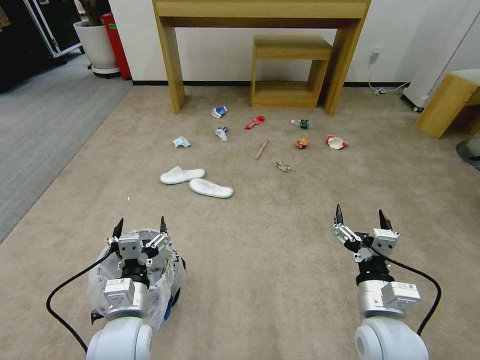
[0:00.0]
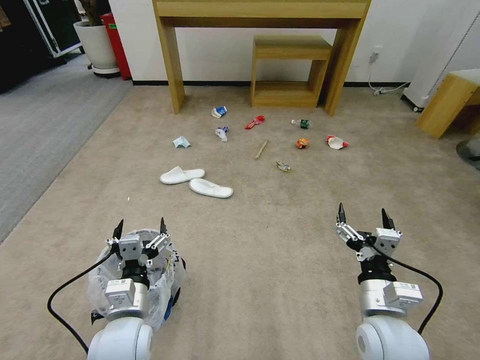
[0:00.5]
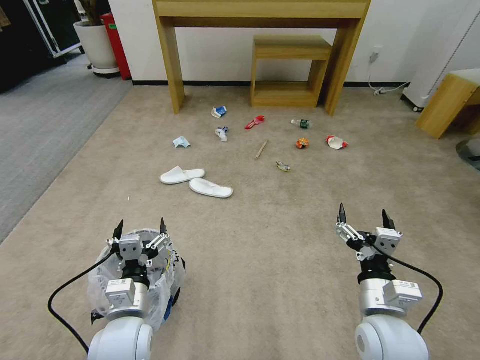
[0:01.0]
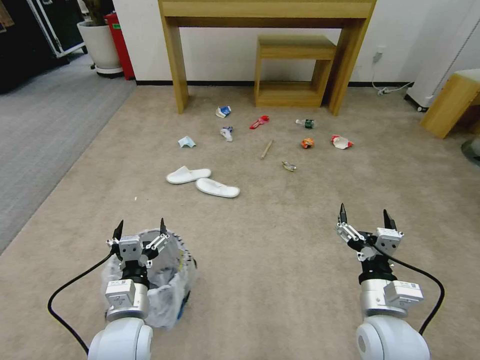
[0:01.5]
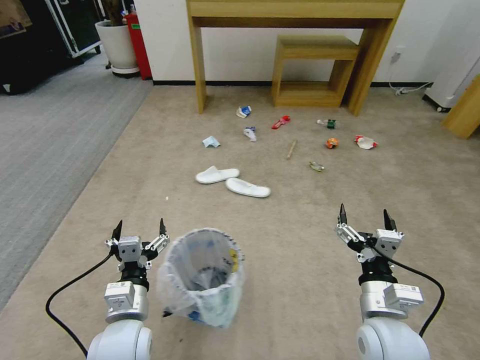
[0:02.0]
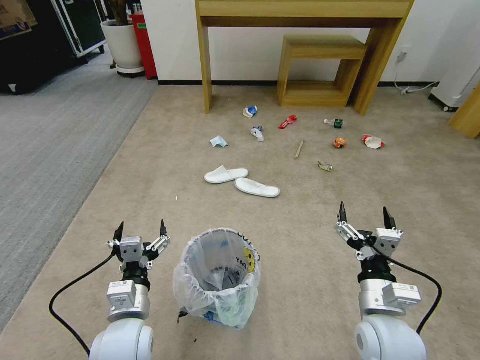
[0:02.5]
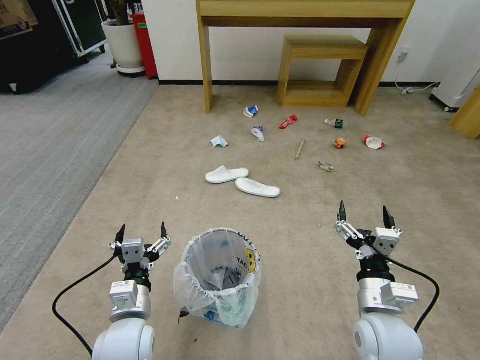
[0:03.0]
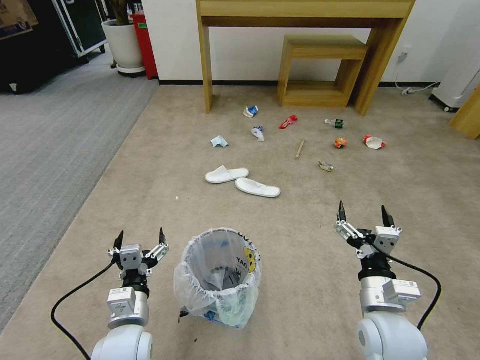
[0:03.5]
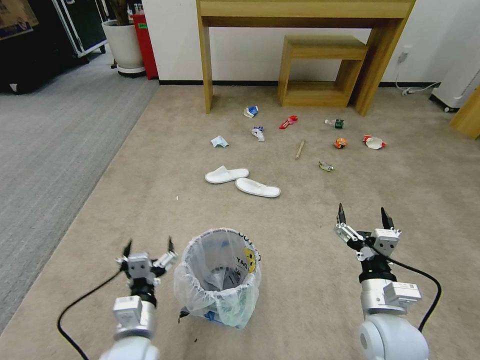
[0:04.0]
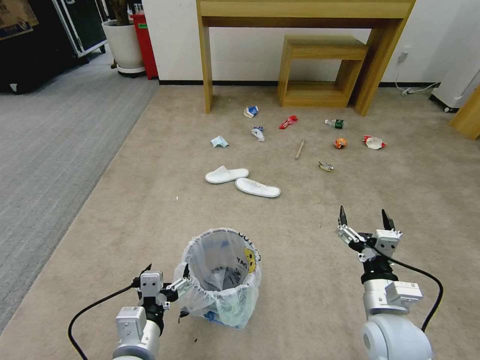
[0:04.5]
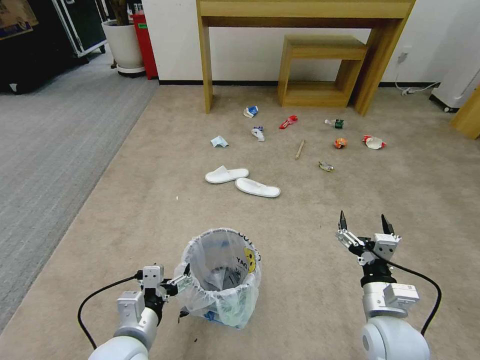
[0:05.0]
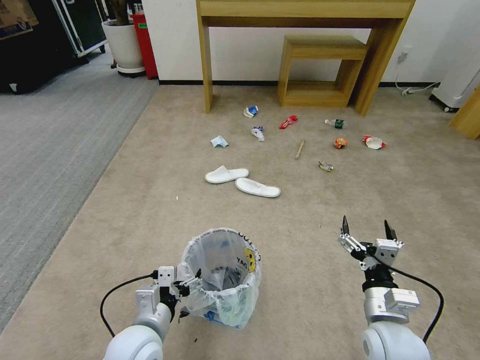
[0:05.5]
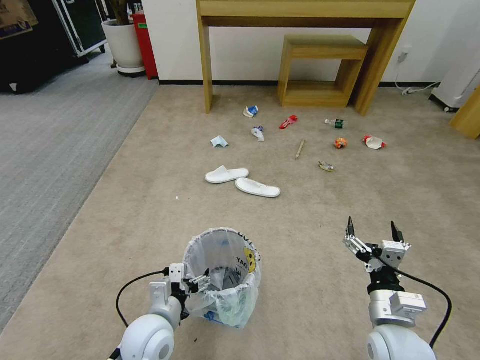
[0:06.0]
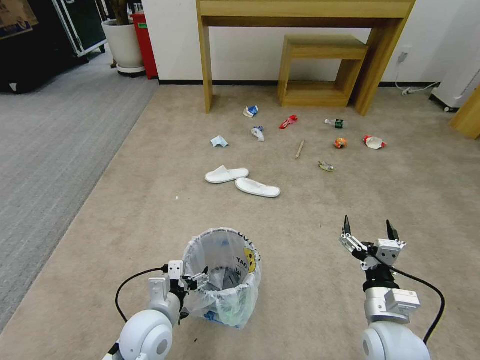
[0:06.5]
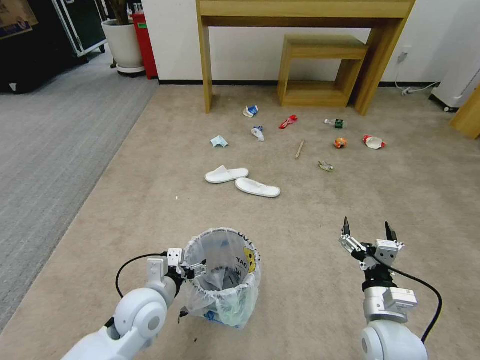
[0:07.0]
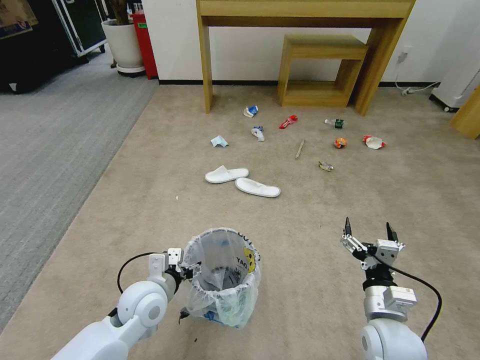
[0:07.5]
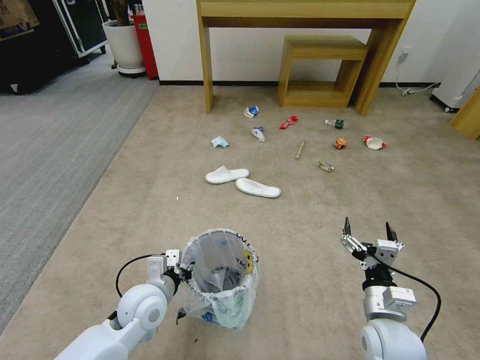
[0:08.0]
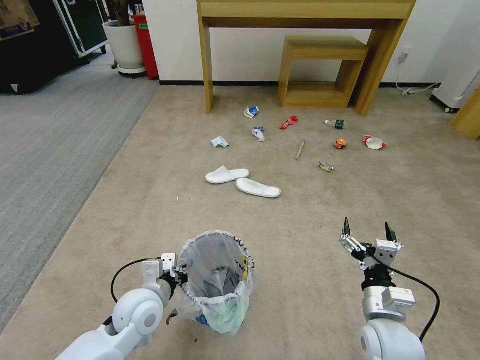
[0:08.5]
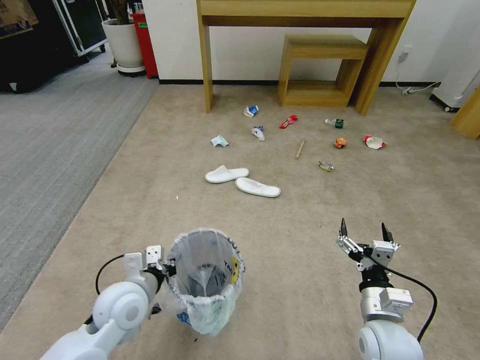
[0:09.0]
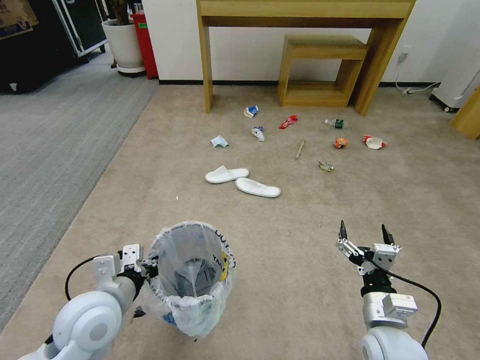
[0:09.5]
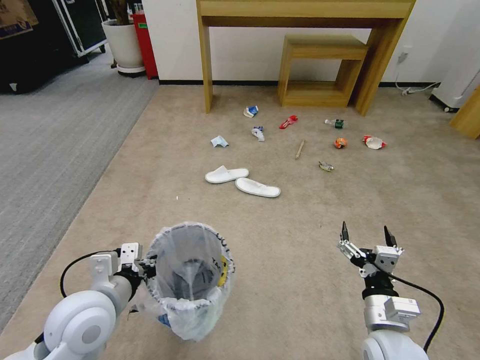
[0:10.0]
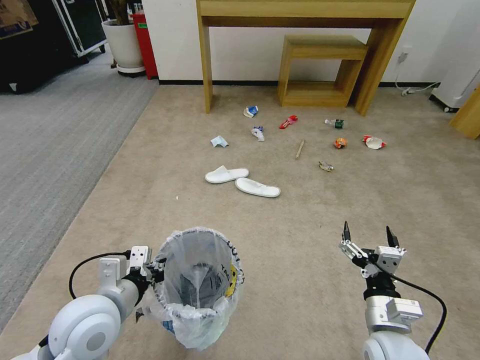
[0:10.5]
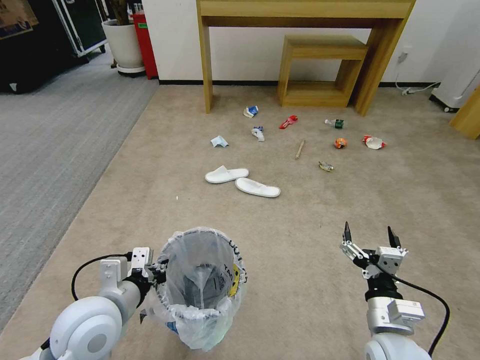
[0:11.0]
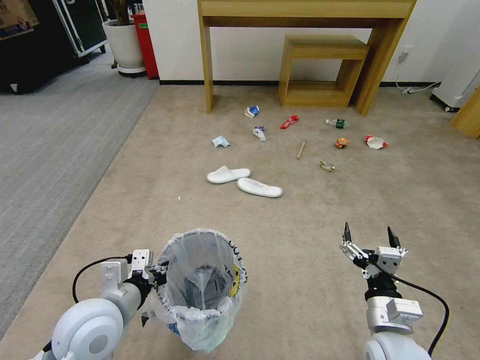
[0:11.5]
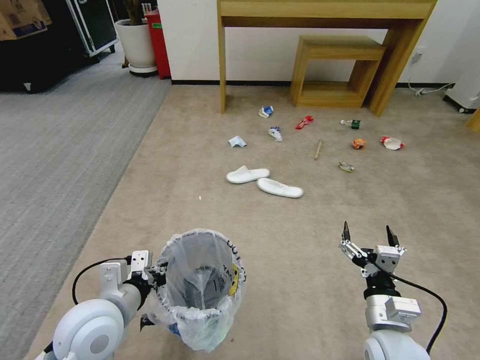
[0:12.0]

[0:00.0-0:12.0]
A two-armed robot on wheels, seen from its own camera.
Task of the whole recording: Pick up the trash bin and place the garbage on the floor into it.
0:02.0 to 0:04.0: The grippers move only a little.
0:04.0 to 0:06.0: The left gripper changes place by roughly 5 cm.
0:06.0 to 0:08.0: The left gripper moves forward, about 5 cm, and closes.
0:08.0 to 0:10.0: The left gripper shifts some 15 cm upward, to the left and backward.
0:10.0 to 0:12.0: The grippers move only a little.

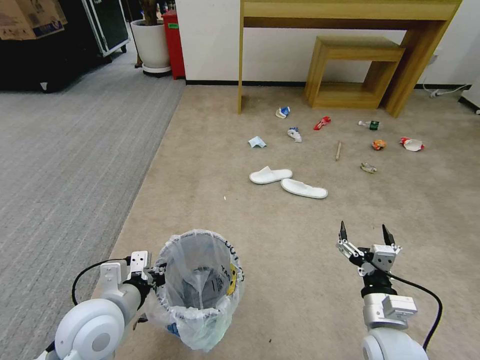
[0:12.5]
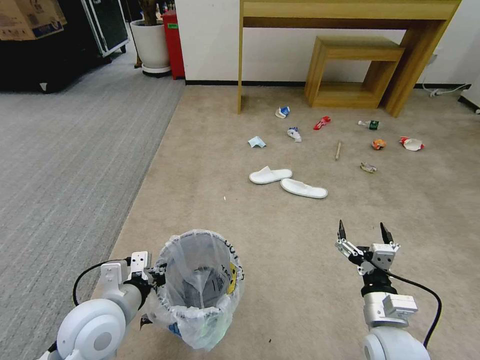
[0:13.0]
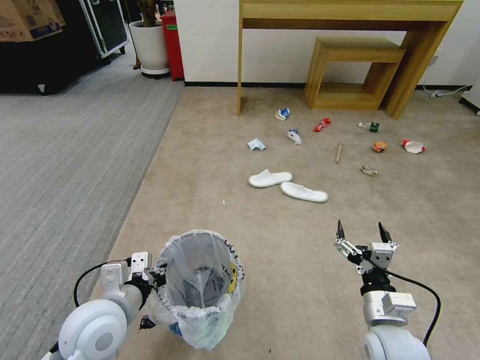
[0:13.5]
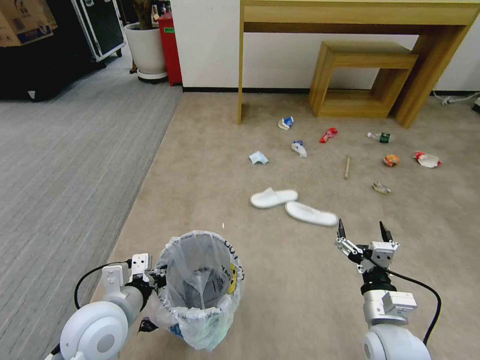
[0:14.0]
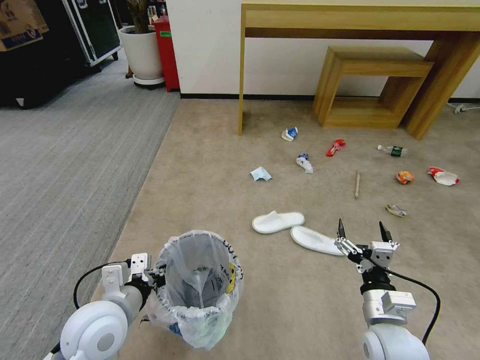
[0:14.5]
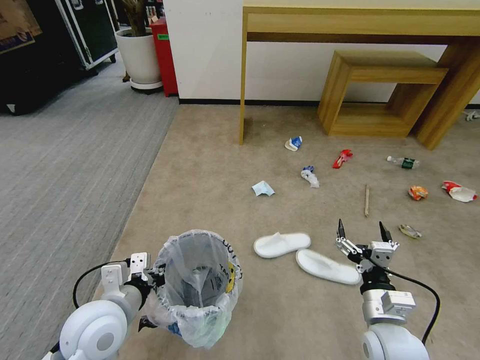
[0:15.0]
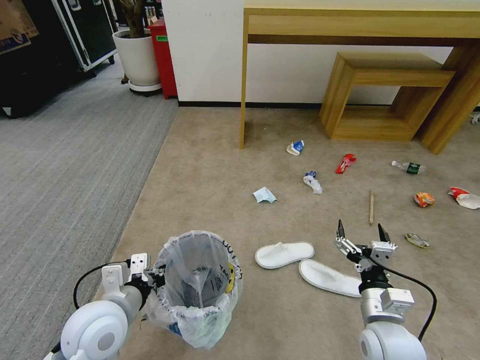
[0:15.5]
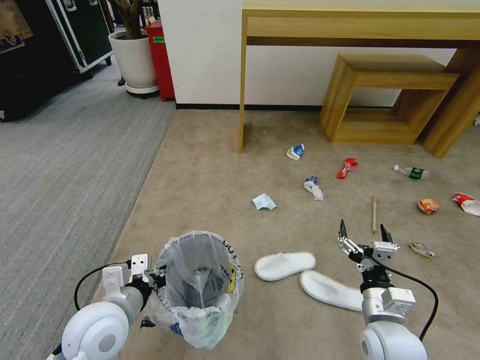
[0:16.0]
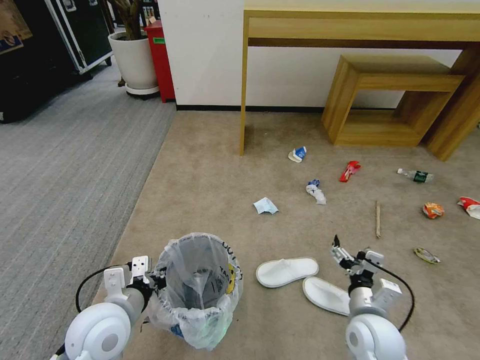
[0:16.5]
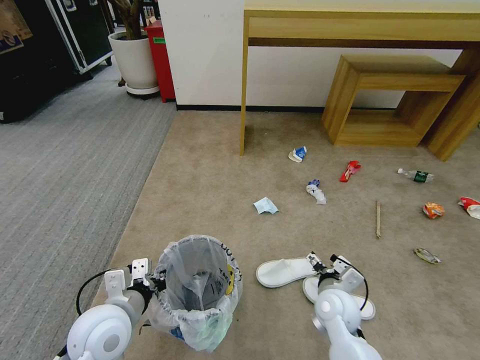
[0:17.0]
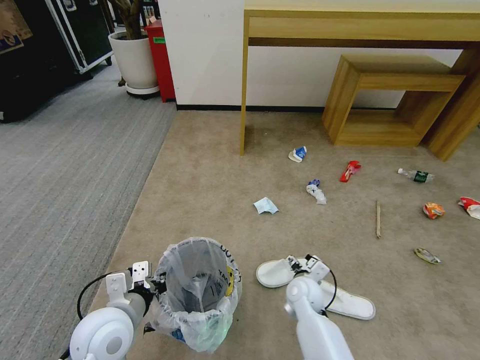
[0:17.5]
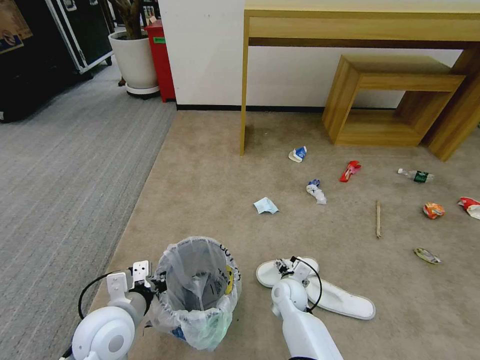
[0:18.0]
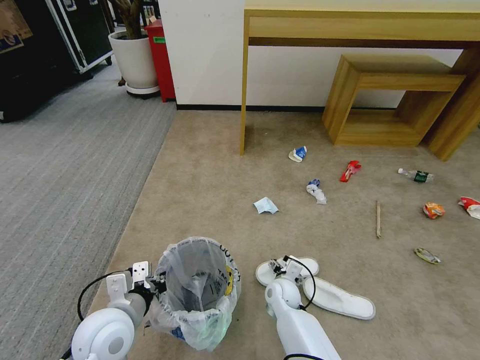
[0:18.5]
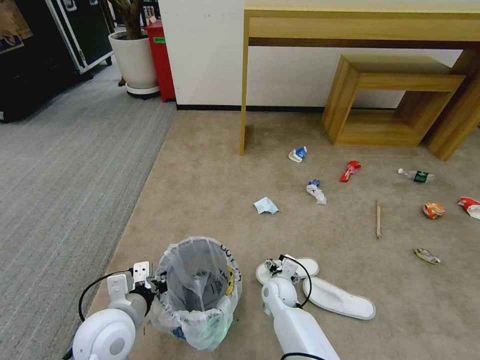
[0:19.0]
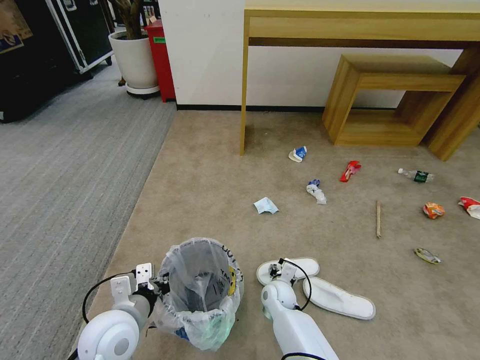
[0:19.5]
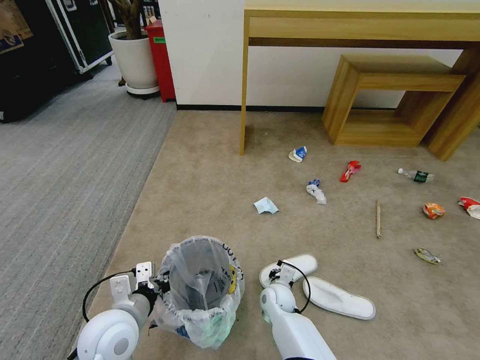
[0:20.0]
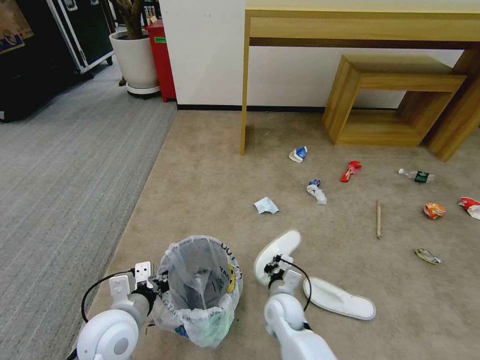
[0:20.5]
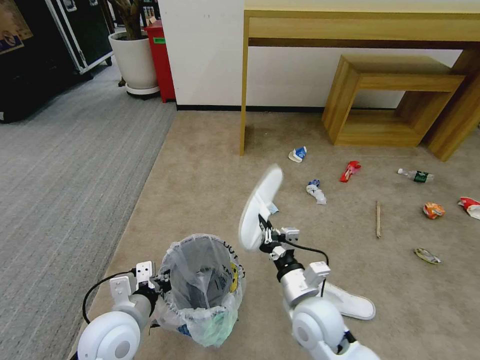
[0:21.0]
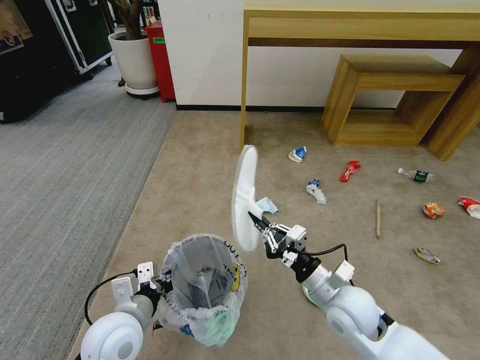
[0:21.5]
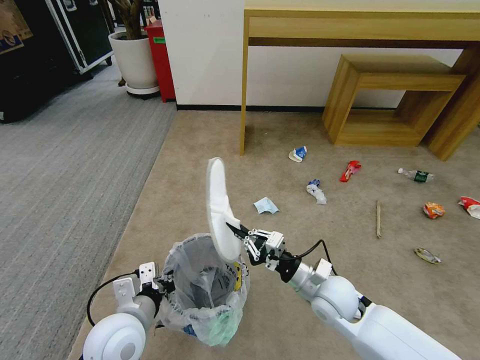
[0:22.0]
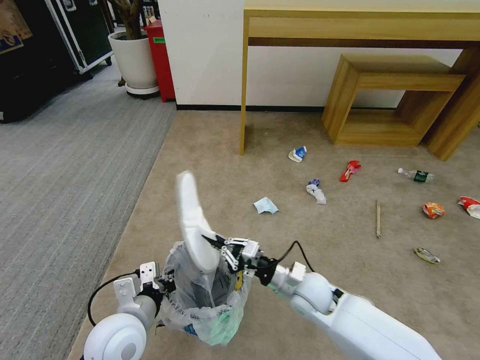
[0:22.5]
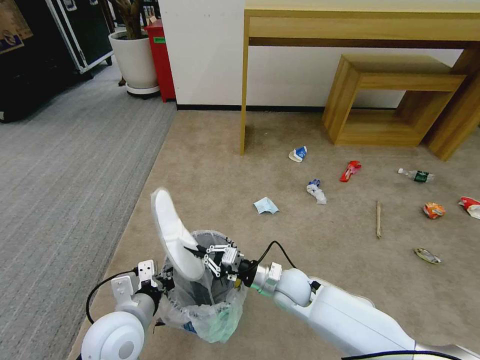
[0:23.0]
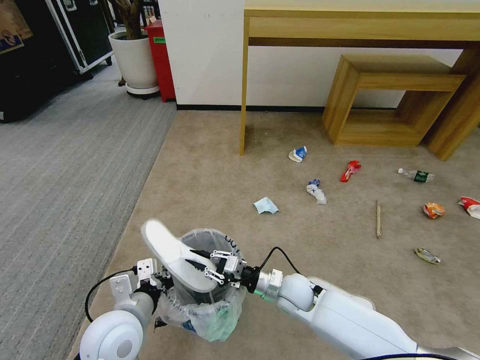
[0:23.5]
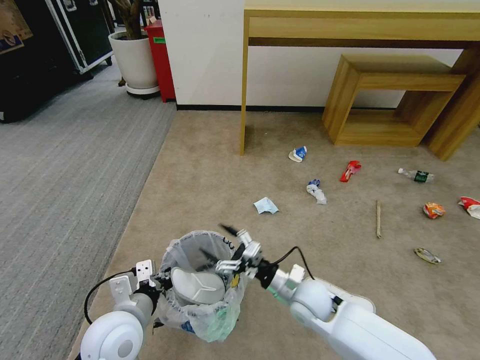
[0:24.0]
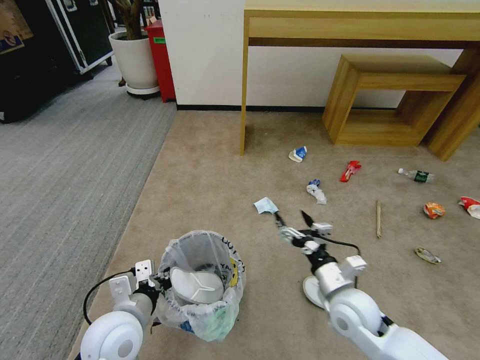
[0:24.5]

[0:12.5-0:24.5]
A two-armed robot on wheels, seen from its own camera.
Task of the whole recording: Pick up the trash bin and place the garbage on the floor into it.
0:16.5 to 0:18.5: The right gripper heads downward, to the left and forward, covering roughly 25 cm.
0:18.5 to 0:20.5: The right gripper is displaced backward by some 5 cm, and closes.
0:20.5 to 0:22.5: The right gripper heads upward, covering about 10 cm.
0:22.5 to 0:24.5: The right gripper heads to the right, covering approximately 5 cm, and opens up.

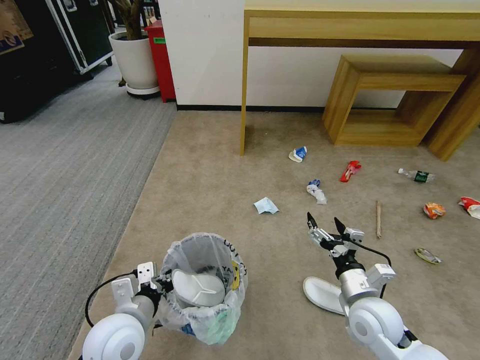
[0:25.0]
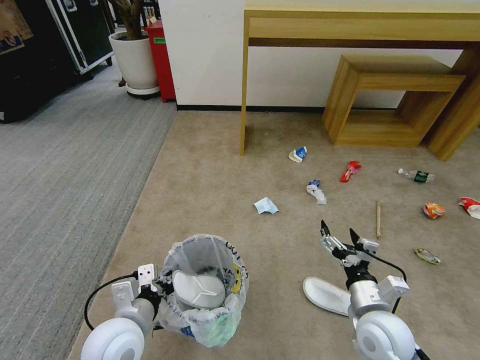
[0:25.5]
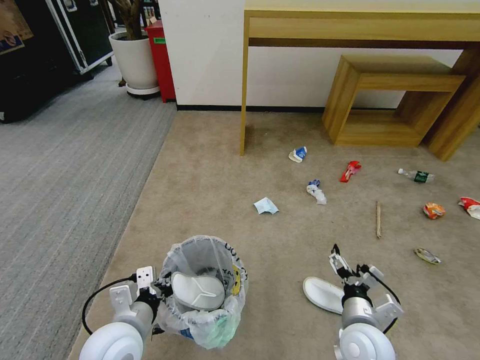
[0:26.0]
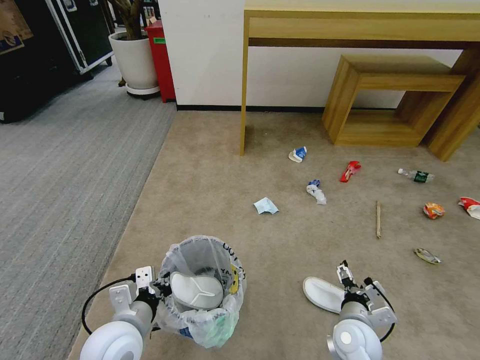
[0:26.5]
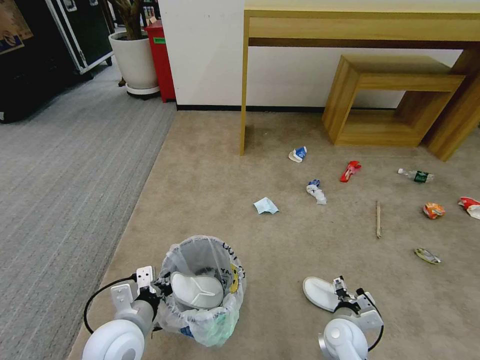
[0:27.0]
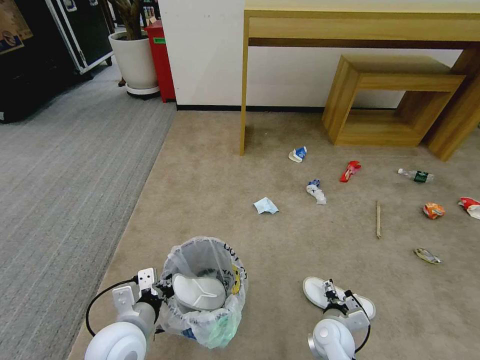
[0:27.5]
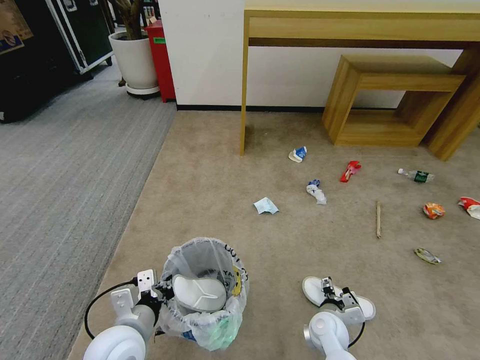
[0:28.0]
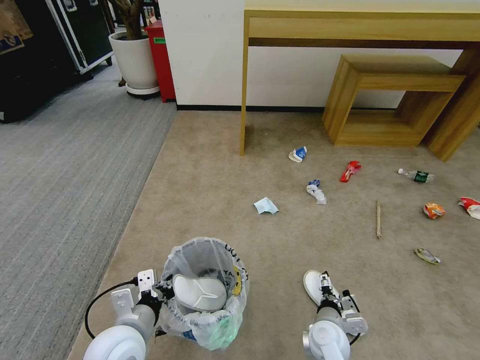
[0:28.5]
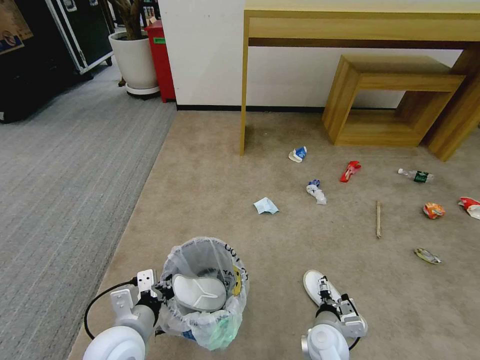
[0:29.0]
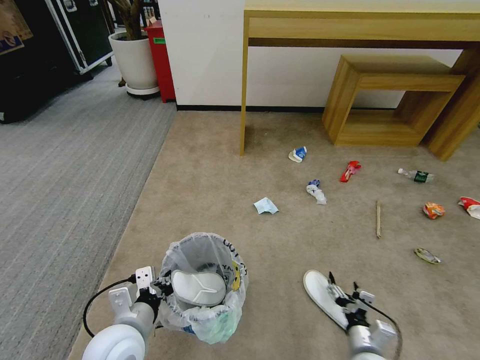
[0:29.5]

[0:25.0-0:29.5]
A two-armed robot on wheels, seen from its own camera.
Task of the whole recording: Pick up the trash bin and place the garbage on the floor into it.
0:25.0 to 0:27.0: The right gripper shifts about 15 cm downward.
0:27.0 to 0:29.5: The right gripper goes about 5 cm backward.
